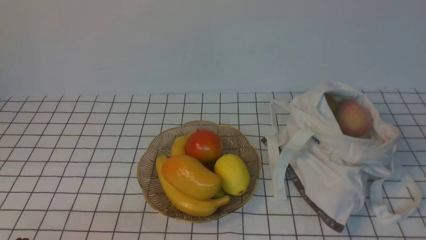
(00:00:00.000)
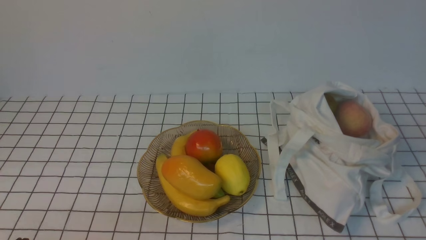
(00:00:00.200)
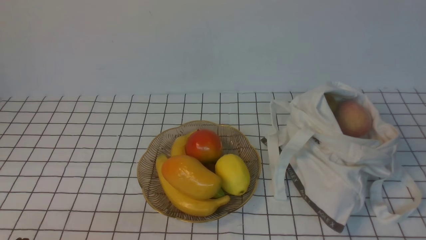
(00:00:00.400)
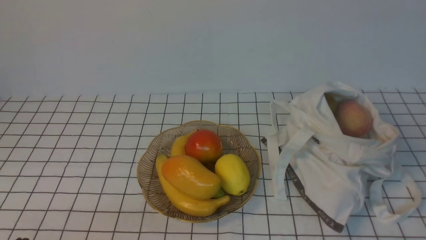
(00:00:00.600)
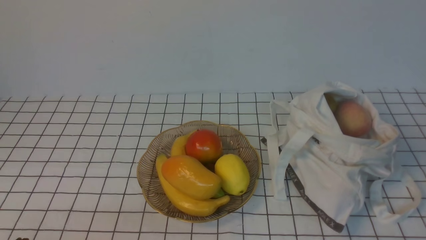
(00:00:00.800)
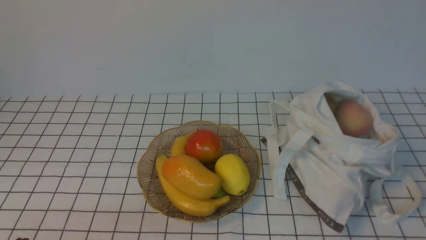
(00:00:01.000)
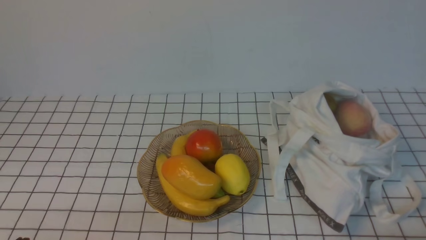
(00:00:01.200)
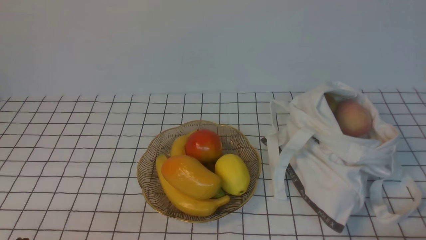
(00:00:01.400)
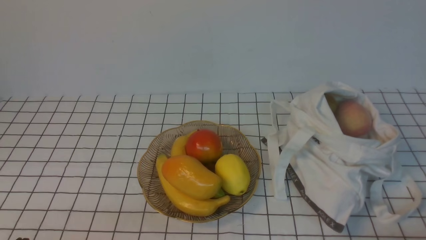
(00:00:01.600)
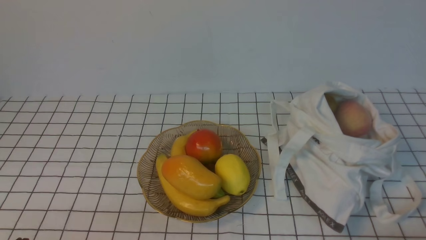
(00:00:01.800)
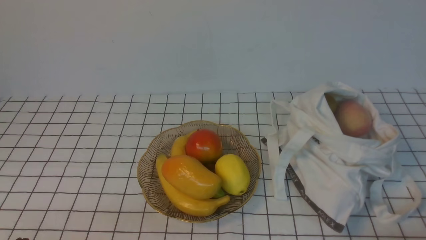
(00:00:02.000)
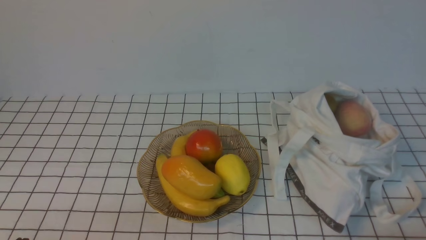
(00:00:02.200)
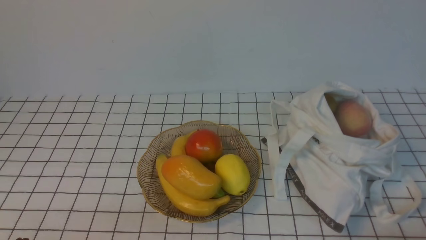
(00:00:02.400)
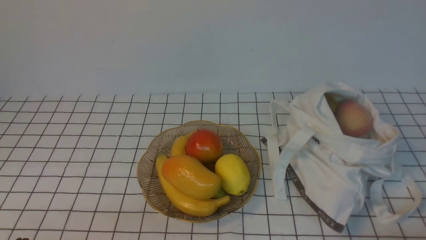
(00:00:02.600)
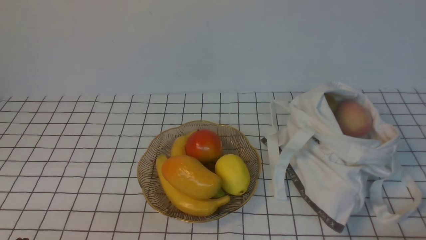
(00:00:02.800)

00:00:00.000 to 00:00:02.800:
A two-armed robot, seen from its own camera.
00:00:01.400 to 00:00:02.800: Neither gripper changes place.
